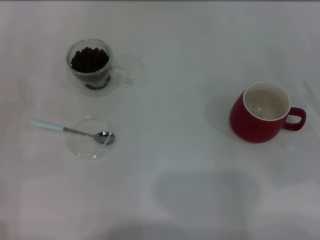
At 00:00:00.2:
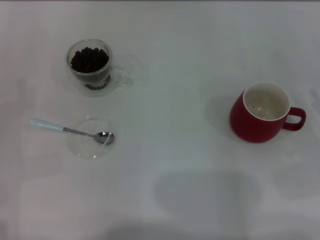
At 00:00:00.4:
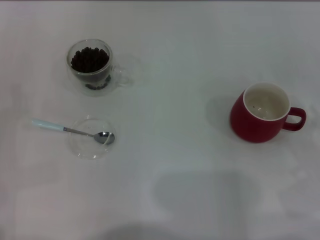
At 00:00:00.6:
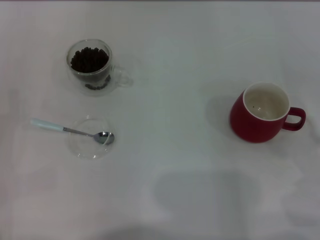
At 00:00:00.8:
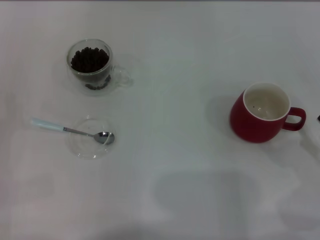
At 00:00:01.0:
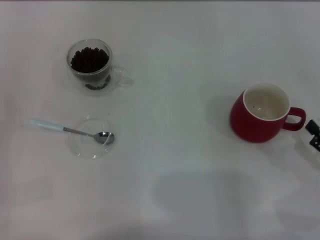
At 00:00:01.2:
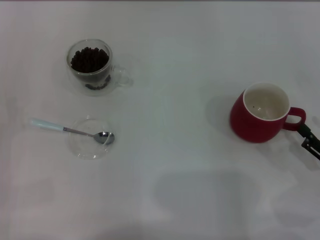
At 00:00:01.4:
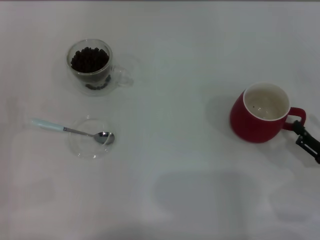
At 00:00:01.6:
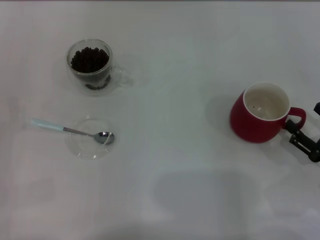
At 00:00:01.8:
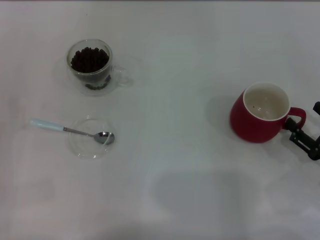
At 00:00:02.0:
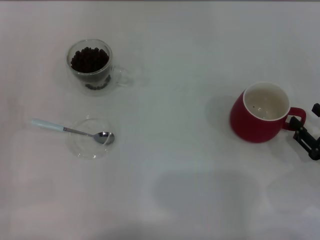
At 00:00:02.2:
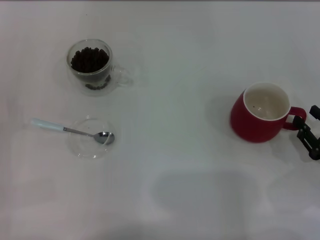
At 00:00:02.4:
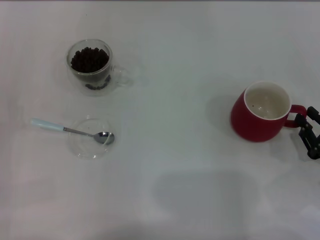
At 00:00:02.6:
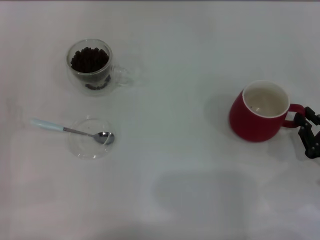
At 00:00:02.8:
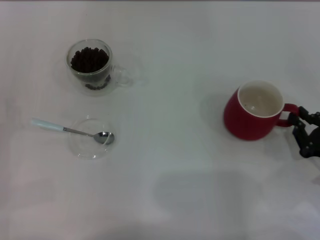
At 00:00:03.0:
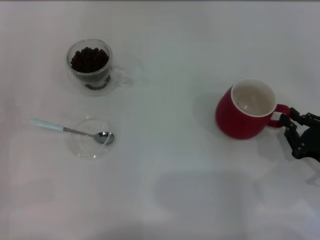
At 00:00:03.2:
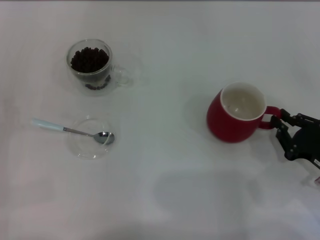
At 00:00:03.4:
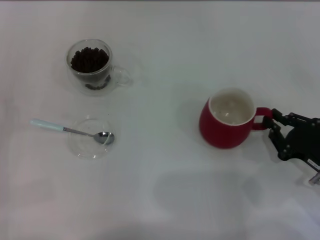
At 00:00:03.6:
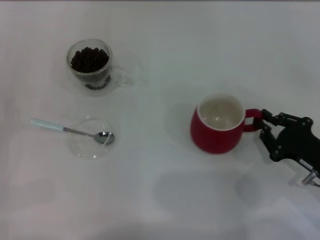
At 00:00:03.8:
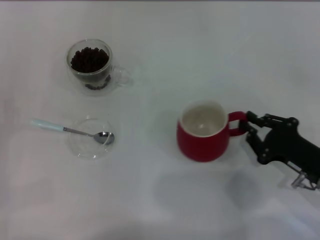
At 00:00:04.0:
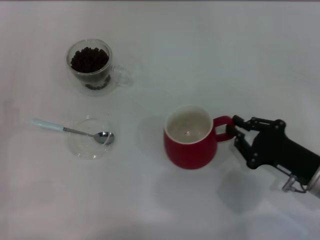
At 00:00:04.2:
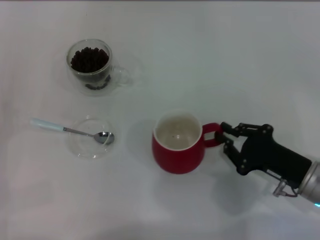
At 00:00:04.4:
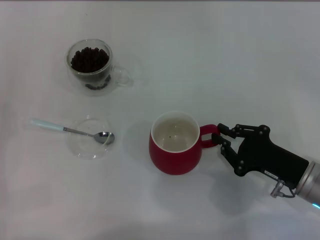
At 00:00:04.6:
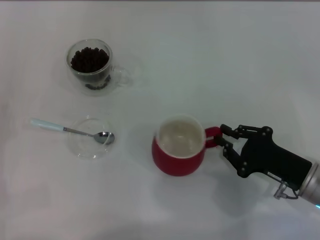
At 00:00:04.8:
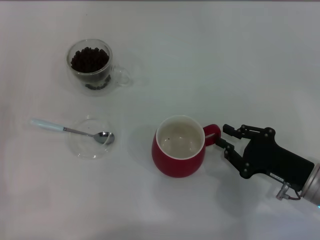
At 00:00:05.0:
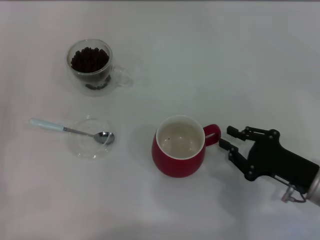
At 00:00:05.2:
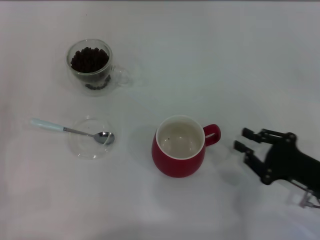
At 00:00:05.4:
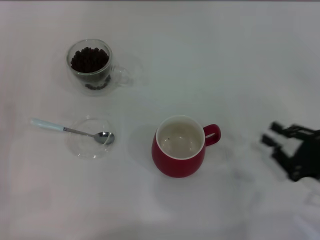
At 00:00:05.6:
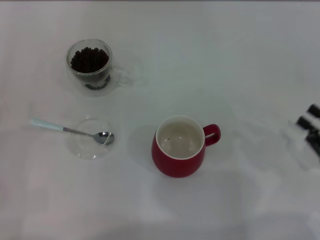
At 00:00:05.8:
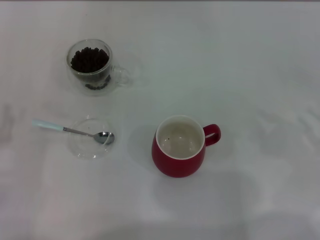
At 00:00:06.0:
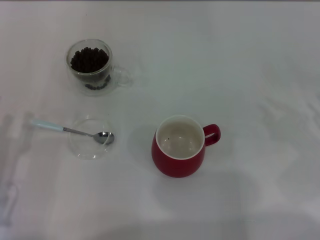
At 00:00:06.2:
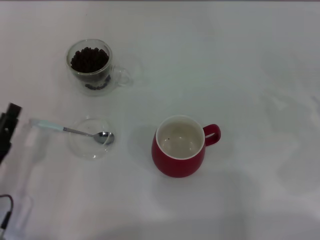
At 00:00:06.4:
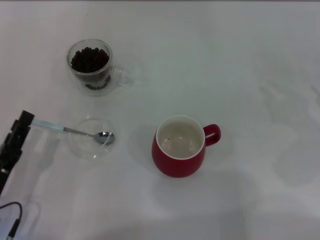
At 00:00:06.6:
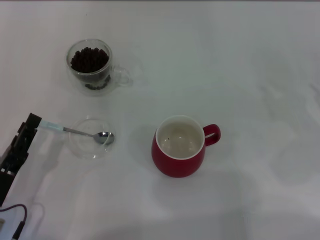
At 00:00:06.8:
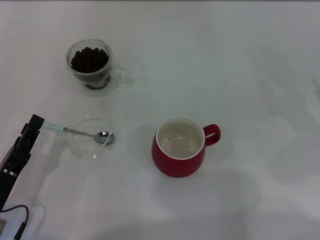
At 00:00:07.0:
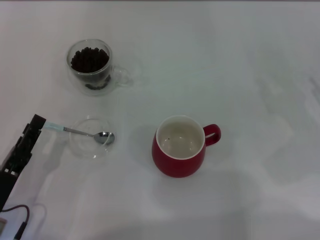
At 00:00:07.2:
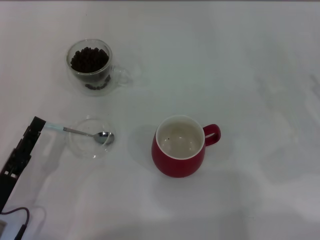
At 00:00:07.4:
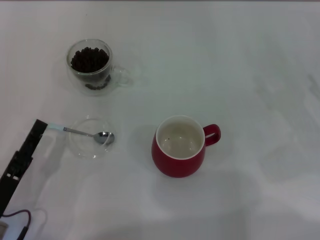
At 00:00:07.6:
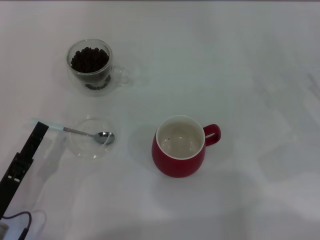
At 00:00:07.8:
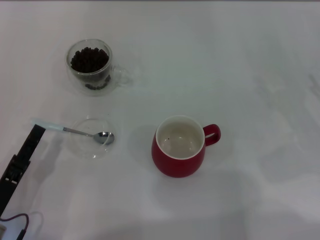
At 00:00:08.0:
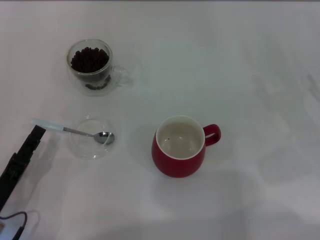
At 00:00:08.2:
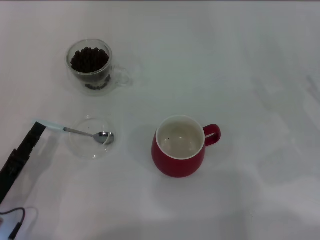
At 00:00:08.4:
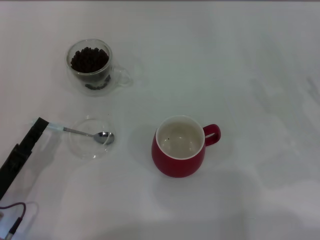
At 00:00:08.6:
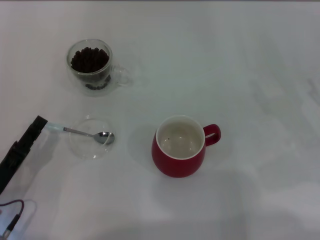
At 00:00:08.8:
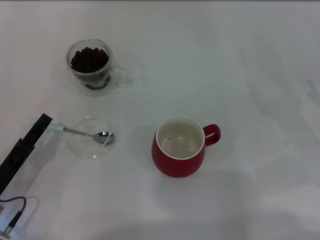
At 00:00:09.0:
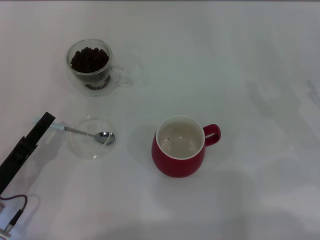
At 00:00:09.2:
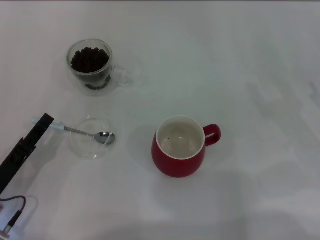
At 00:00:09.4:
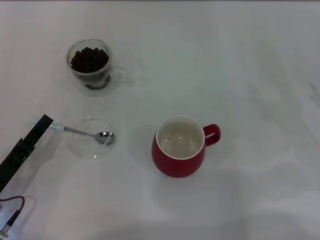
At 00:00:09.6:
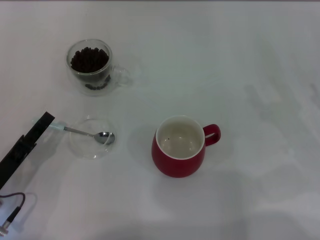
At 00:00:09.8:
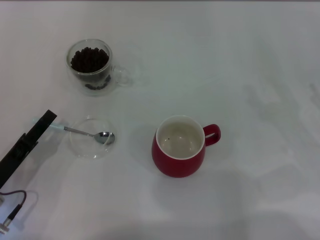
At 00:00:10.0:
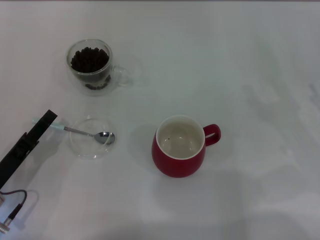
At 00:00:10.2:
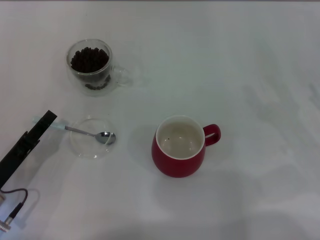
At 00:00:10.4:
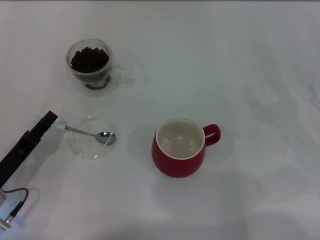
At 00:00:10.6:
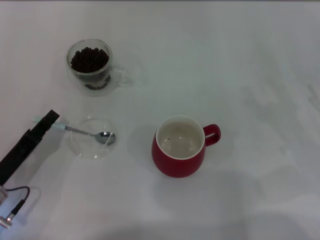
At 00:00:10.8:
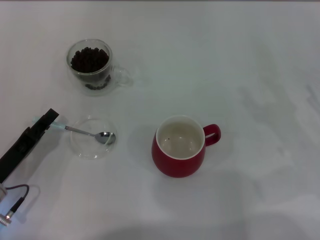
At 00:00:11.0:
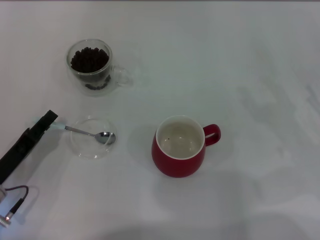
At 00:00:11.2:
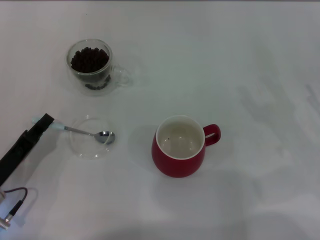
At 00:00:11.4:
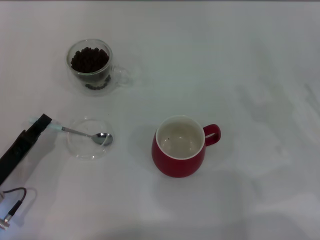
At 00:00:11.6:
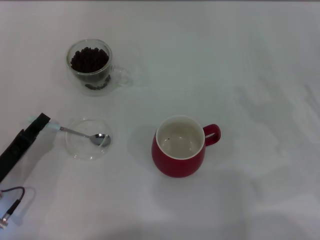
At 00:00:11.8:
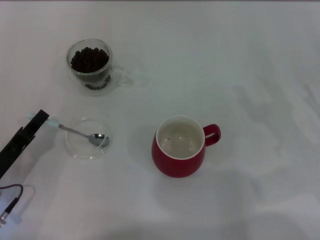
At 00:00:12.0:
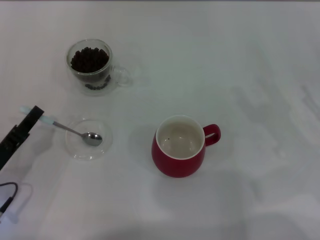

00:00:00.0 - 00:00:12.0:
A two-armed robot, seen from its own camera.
Task of the whole recording: Use a blue spoon to take out the coffee beans from the glass and pour them into the red cup.
Step, 00:00:00.0 - 00:00:05.0: Move the cup to the center of view with the left gripper.
00:00:00.0 - 00:00:01.6: The right gripper ends up about 5 cm from where it was.
00:00:01.6 - 00:00:03.0: The right gripper closes.
00:00:03.0 - 00:00:04.4: The right gripper travels to the left by approximately 5 cm.
00:00:04.4 - 00:00:06.0: The right gripper is displaced to the right by some 15 cm; the left gripper moves to the right, about 5 cm.
00:00:07.6 - 00:00:09.0: The grippers make only small movements.
00:00:09.0 - 00:00:10.4: The left gripper closes.
00:00:10.4 - 00:00:12.0: The left gripper closes up.

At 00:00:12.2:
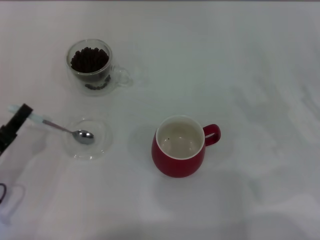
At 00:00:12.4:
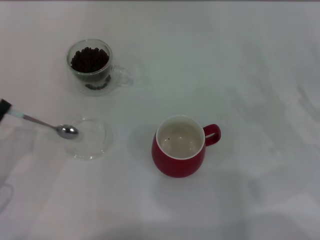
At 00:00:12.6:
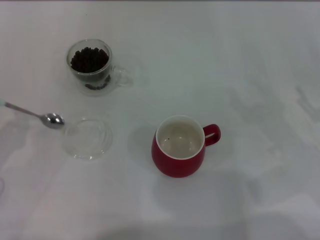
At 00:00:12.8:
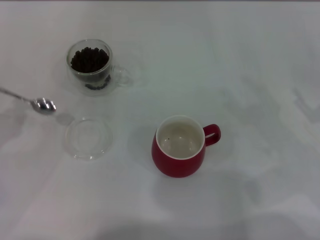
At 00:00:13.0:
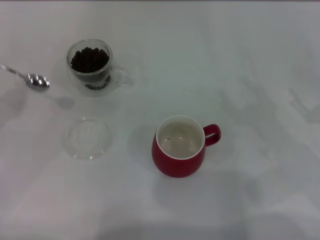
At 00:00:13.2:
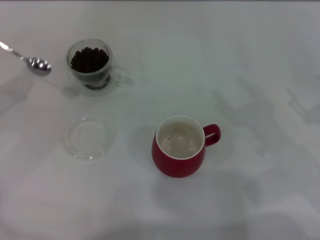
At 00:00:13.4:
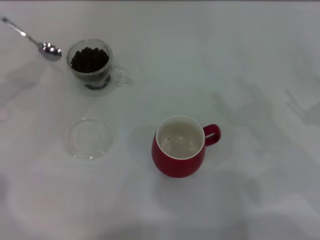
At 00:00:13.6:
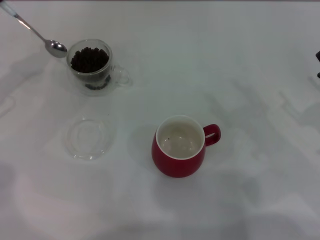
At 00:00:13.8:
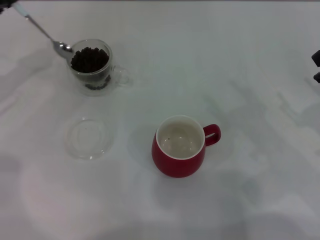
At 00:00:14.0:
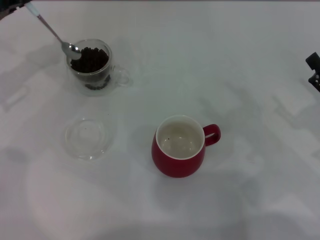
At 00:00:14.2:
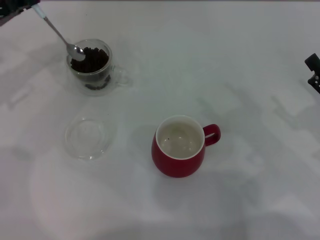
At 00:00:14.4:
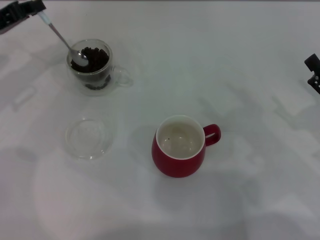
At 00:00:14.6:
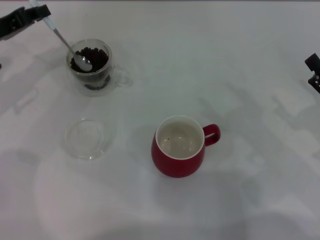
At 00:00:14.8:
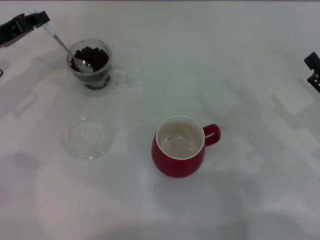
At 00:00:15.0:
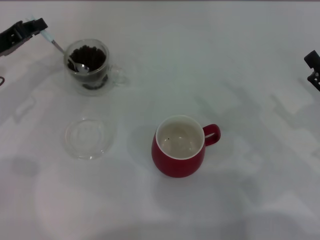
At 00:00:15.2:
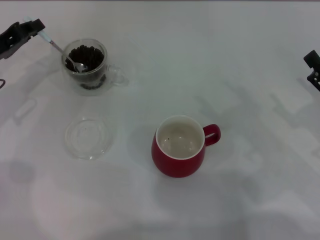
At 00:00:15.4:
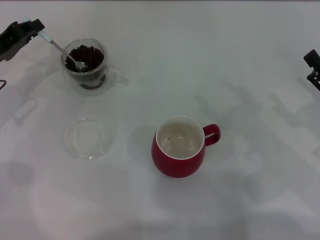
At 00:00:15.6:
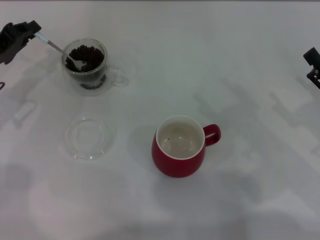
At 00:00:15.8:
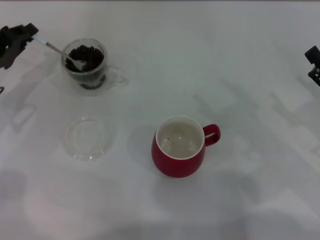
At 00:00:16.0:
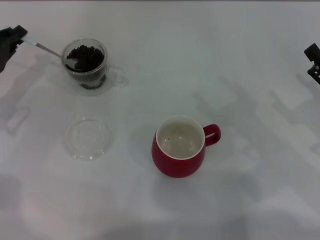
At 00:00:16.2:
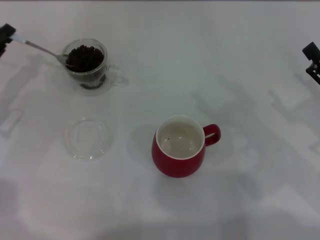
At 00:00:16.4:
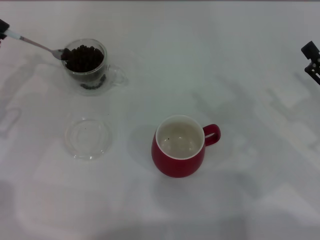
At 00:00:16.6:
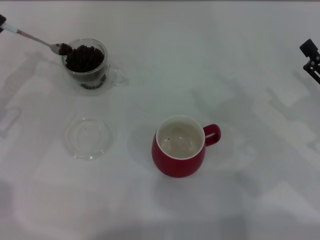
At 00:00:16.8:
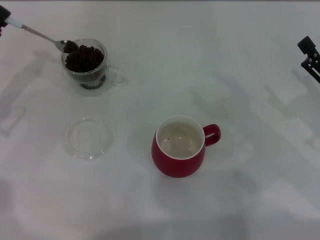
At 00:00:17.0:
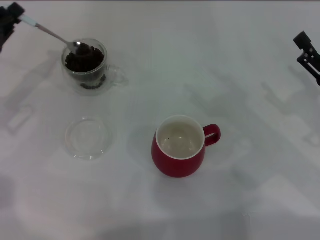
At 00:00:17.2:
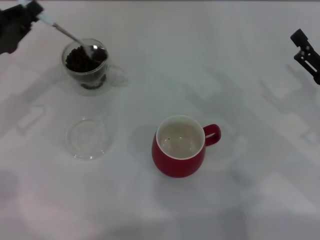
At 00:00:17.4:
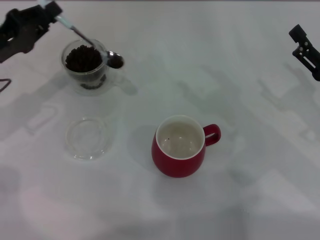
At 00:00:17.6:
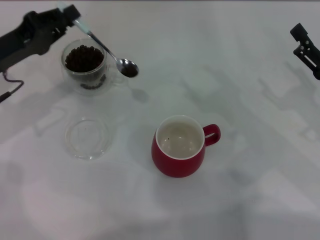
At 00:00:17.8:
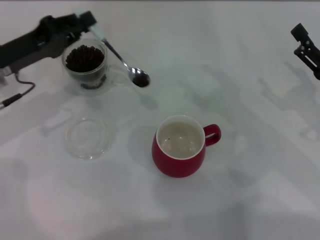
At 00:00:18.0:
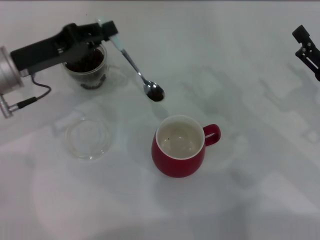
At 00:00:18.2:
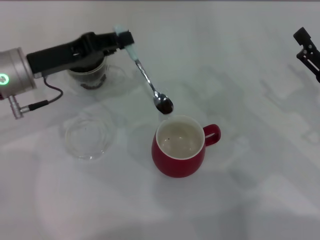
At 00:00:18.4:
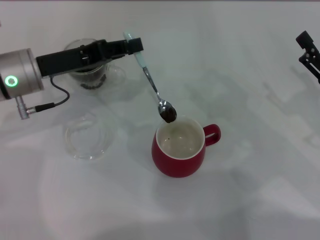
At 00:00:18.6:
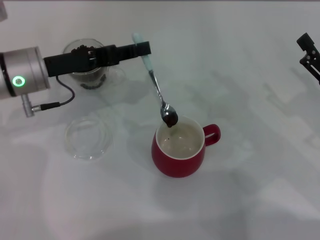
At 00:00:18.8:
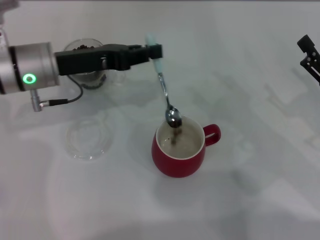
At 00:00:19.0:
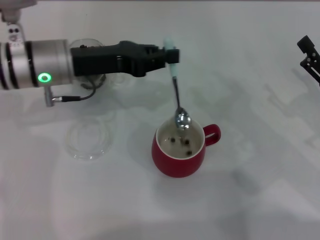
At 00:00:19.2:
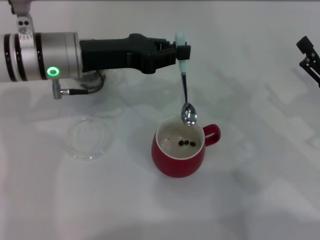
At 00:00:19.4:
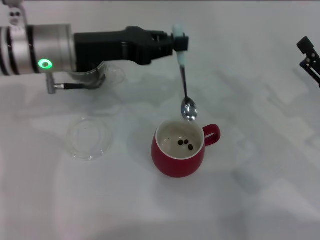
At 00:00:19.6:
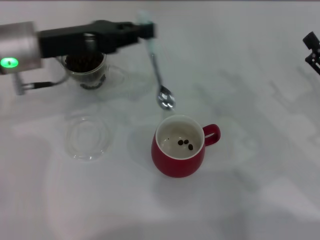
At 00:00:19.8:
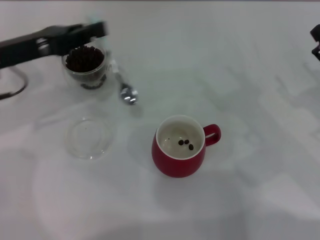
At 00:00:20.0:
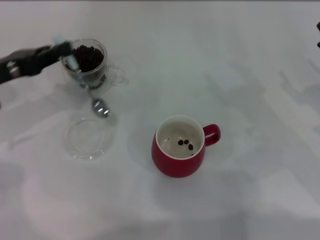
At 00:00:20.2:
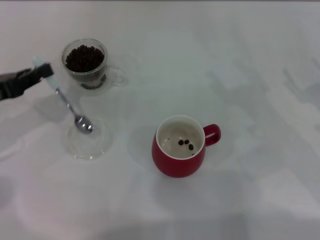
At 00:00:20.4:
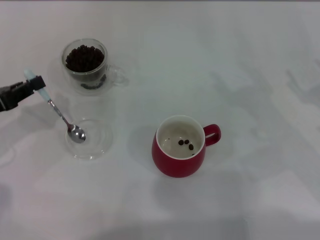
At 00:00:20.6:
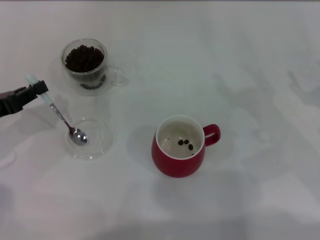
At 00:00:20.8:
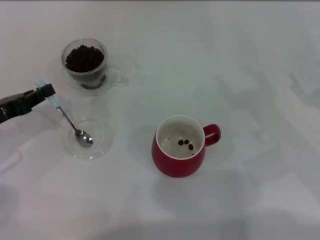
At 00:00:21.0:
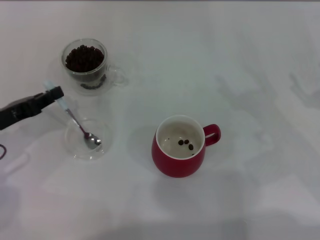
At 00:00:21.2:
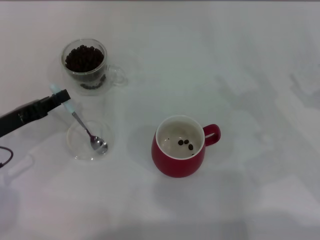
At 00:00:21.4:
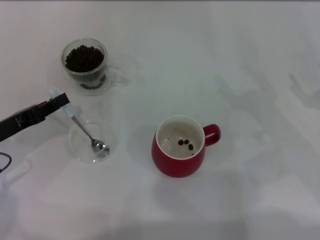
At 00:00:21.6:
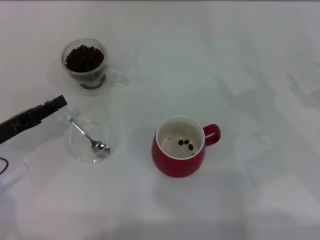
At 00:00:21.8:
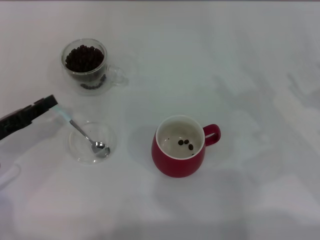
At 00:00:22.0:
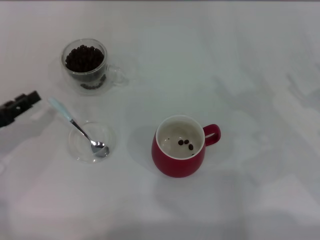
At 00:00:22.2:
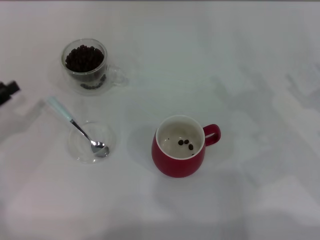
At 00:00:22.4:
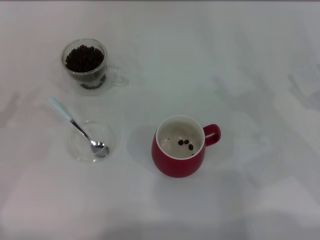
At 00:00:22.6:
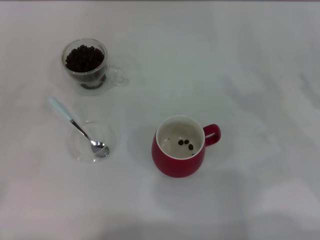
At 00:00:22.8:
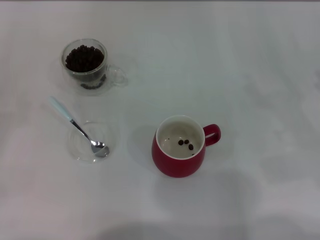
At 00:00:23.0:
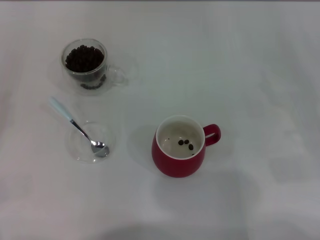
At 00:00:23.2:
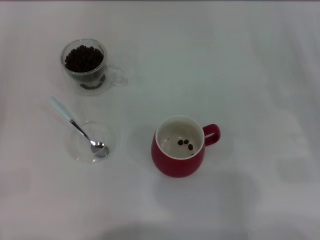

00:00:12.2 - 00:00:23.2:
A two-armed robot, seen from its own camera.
Task of the whole recording: Use a blue spoon to take out the coffee beans from the glass and pour them into the red cup.
00:00:12.2 - 00:00:13.8: The left gripper goes roughly 20 cm forward and upward.
00:00:13.8 - 00:00:15.4: The left gripper heads downward, covering some 5 cm.
00:00:15.4 - 00:00:17.0: The grippers make only small movements.
00:00:17.0 - 00:00:18.4: The left gripper travels to the right by roughly 10 cm.
00:00:18.4 - 00:00:20.0: The left gripper moves to the left, about 10 cm.
00:00:20.0 - 00:00:21.6: The left gripper moves downward and backward, roughly 10 cm.
00:00:21.6 - 00:00:23.2: The left gripper travels to the left and backward by roughly 15 cm, and opens.
